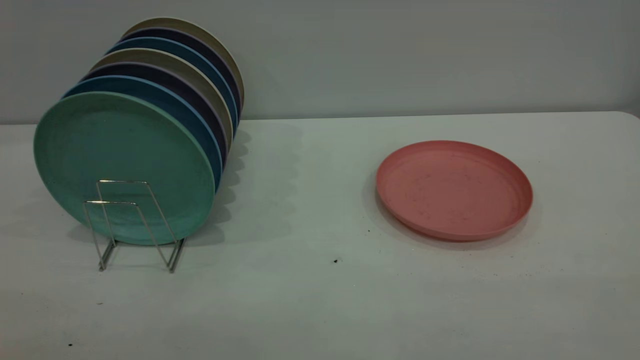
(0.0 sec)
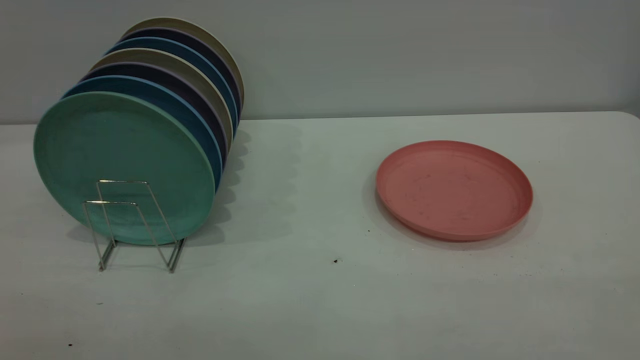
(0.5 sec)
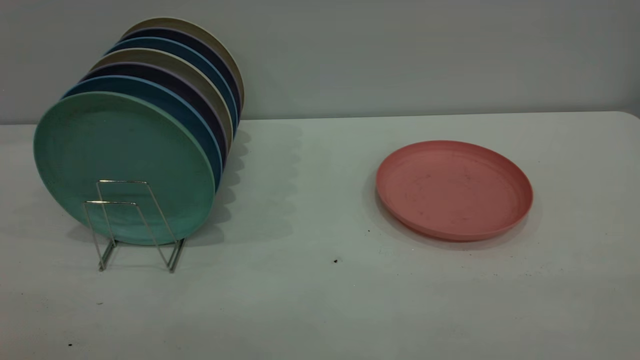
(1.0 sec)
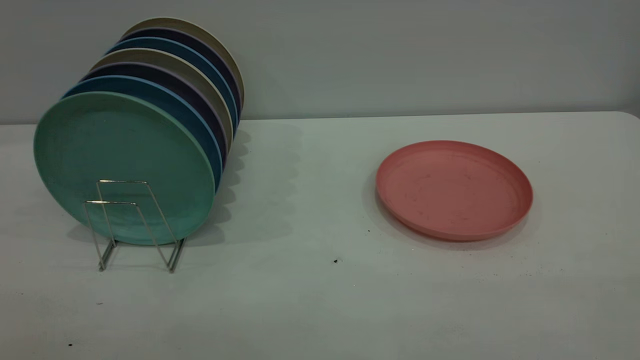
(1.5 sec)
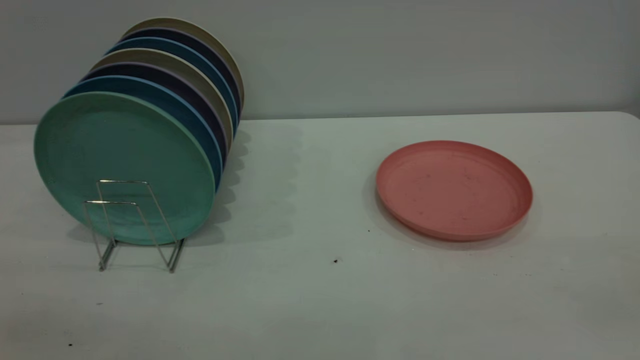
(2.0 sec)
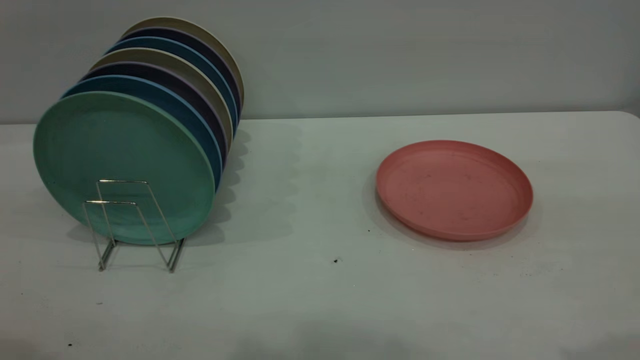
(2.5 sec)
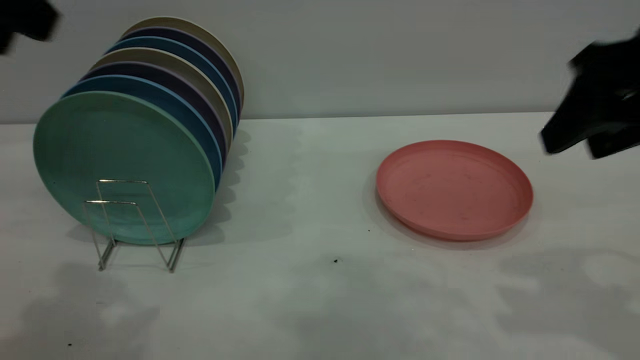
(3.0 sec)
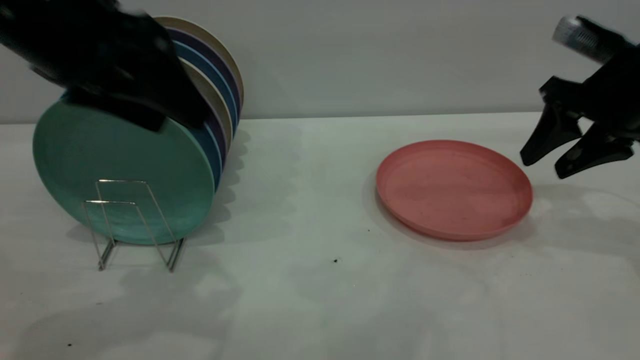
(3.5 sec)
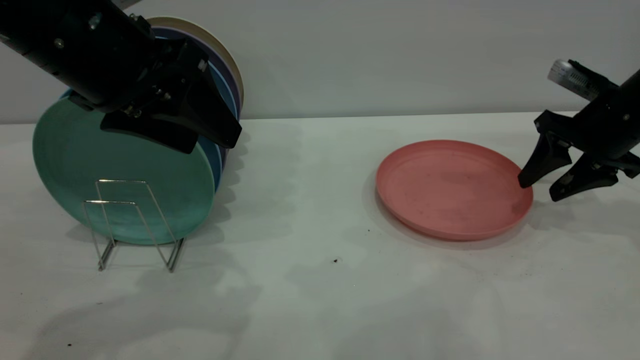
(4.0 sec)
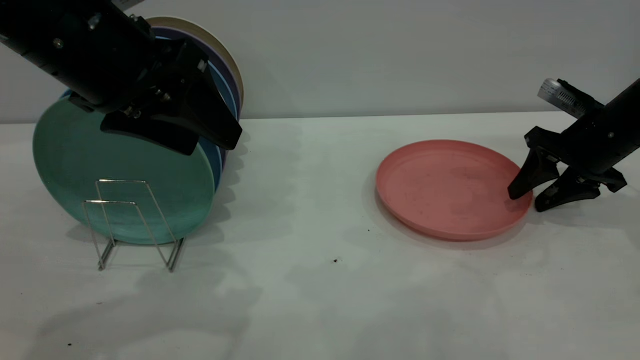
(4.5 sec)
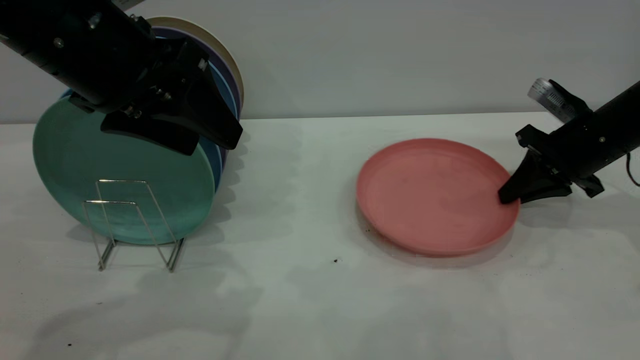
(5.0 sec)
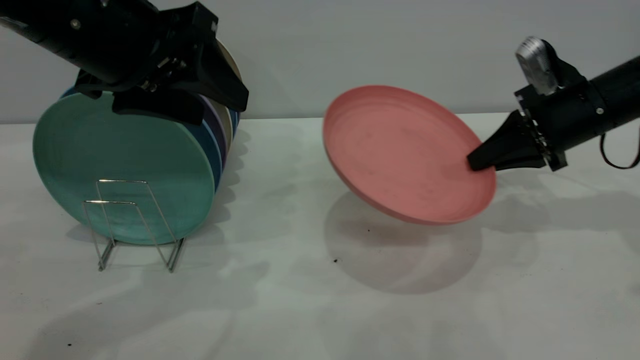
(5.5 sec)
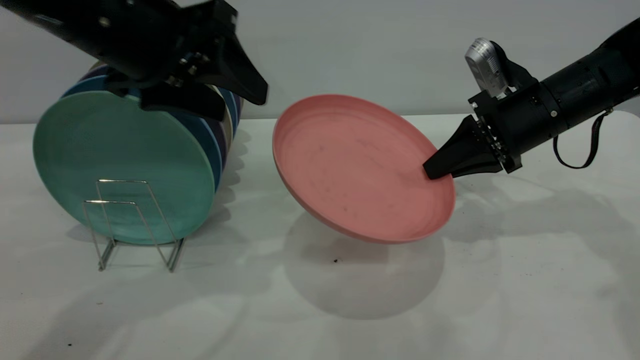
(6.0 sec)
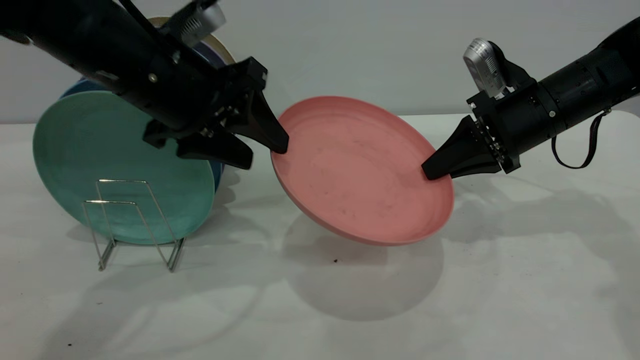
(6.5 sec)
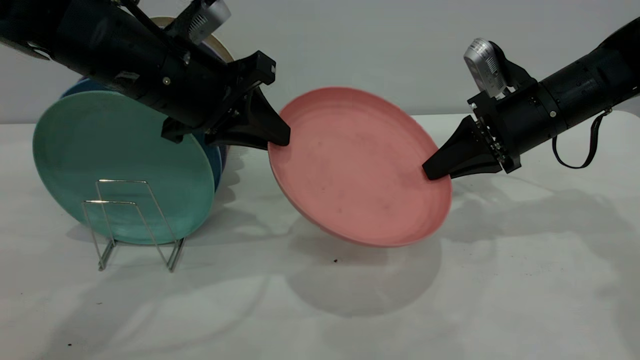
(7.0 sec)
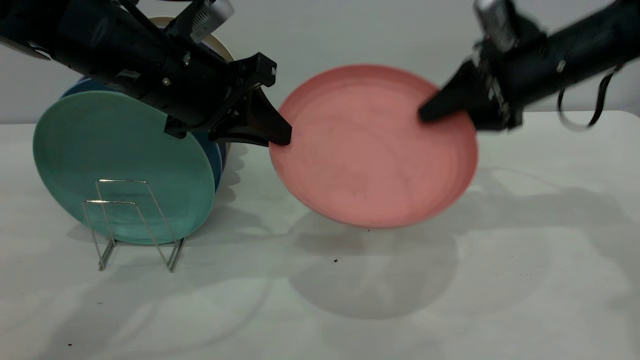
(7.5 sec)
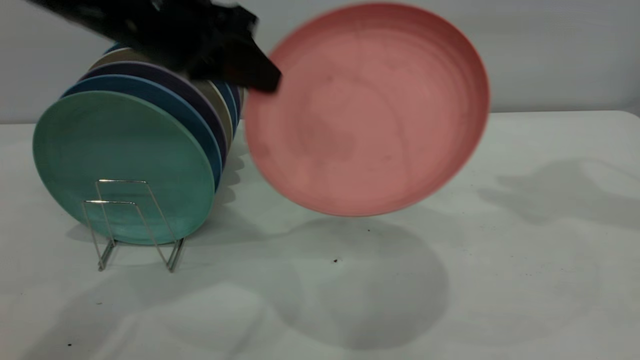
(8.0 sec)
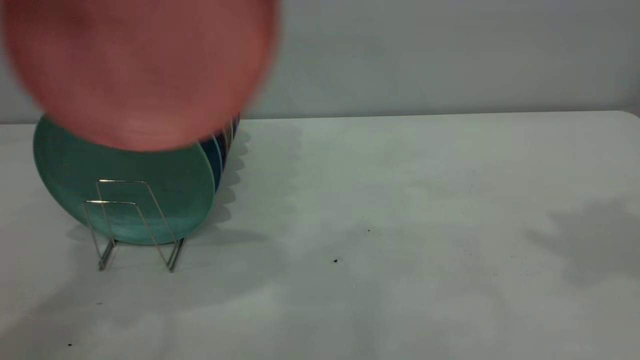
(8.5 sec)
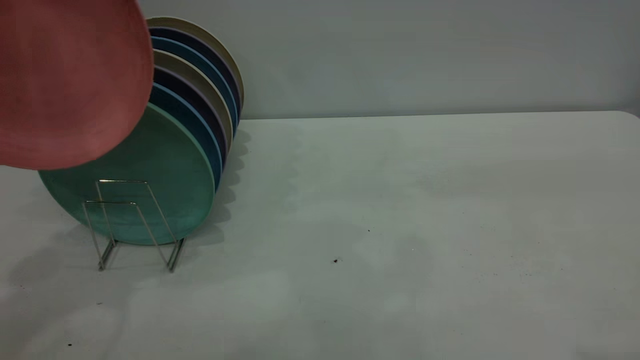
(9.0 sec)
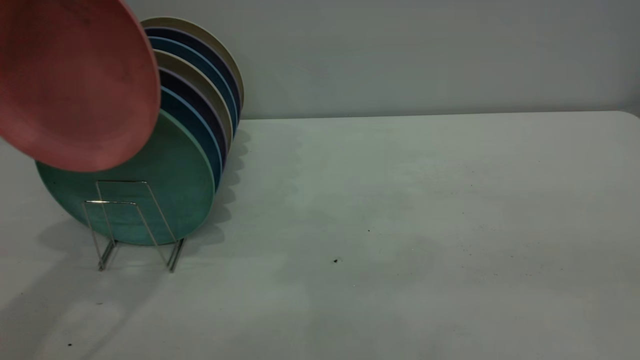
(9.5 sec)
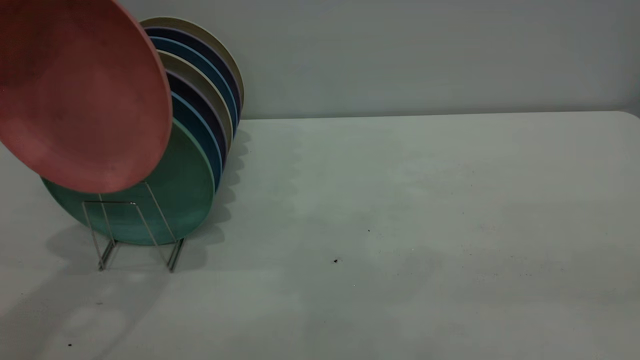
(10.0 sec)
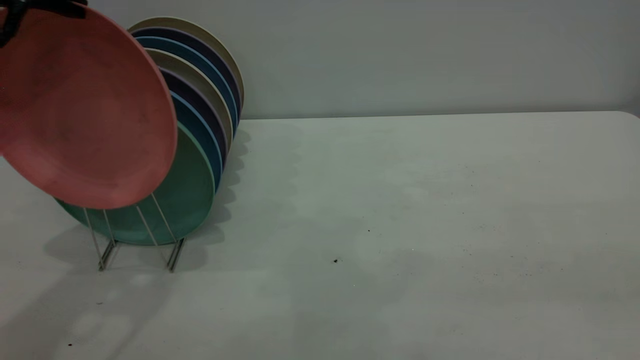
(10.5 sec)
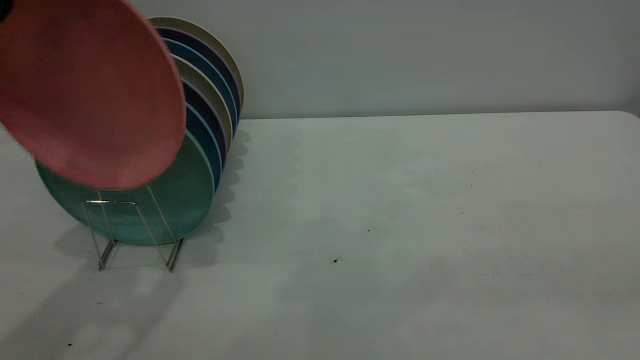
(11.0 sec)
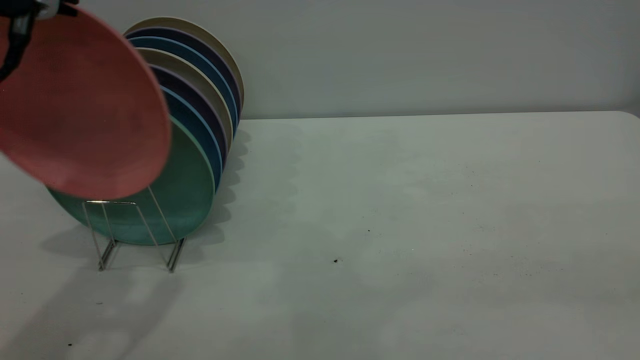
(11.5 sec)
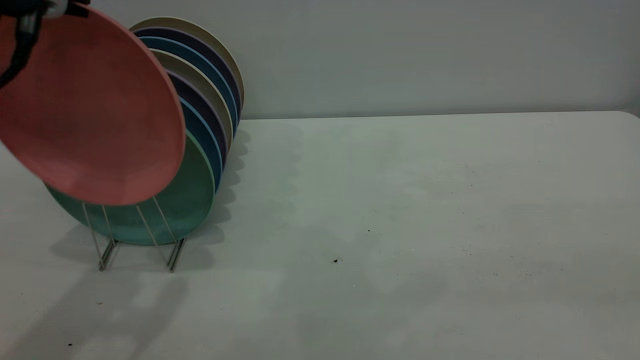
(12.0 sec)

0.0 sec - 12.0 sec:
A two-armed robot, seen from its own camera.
Task of the whole recording: the right gripper grasp the pink plate, the right gripper pass the pink plate to the left gripper, and the left gripper place the pink plate on the plate rack.
Step, 0.0 sec - 5.0 sec: Pick up the plate with the right gripper.
Step, 5.5 sec - 7.5 sec: Pass the plate from the right gripper to the left gripper.
2.0 sec - 4.0 sec: The right gripper travels forward and downward by approximately 50 cm; the left gripper heads forward, downward and to the right, covering about 35 cm.
4.0 sec - 6.0 sec: The right gripper travels to the left by roughly 10 cm, and closes up.
6.0 sec - 8.0 sec: The left gripper closes its fingers; the right gripper goes roughly 25 cm upward and to the right, and opens its fingers.
8.0 sec - 10.0 sec: The right gripper moves backward, approximately 35 cm; the left gripper shifts roughly 15 cm to the left and upward.
10.0 sec - 12.0 sec: The grippers stay close to where they were, moving slightly.

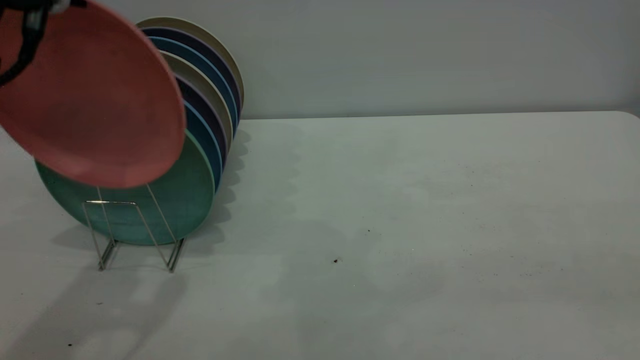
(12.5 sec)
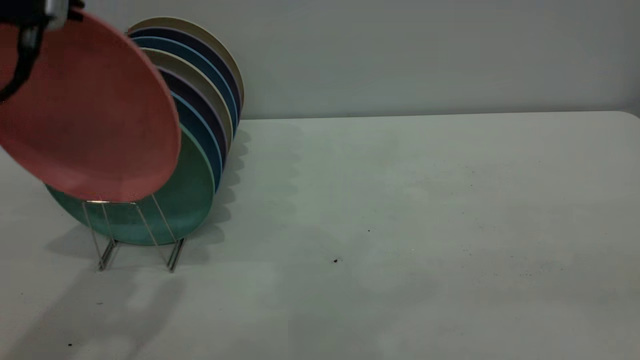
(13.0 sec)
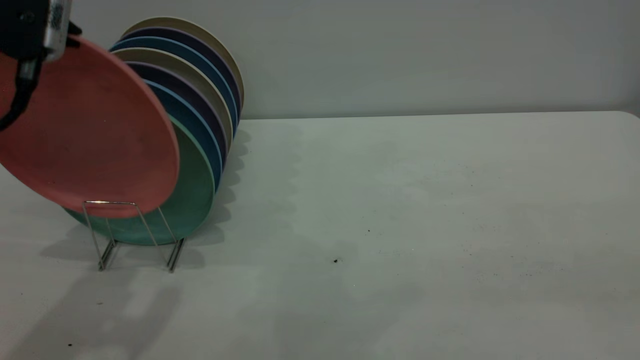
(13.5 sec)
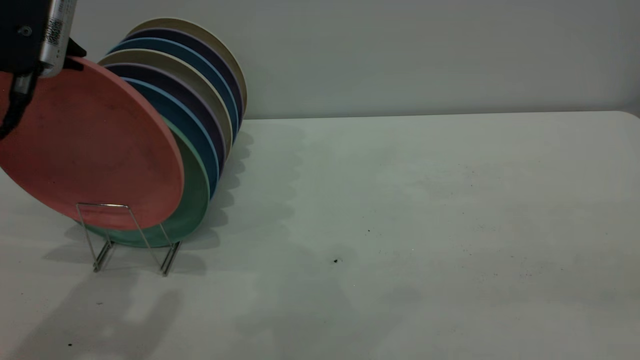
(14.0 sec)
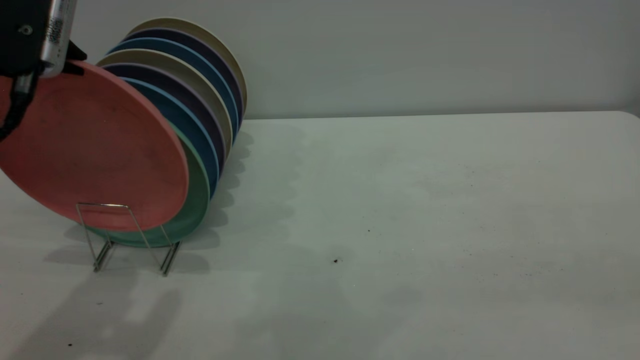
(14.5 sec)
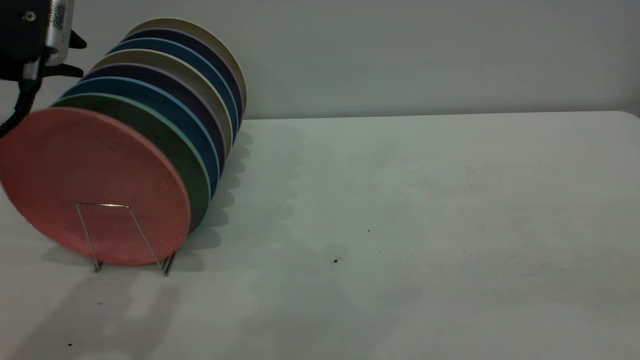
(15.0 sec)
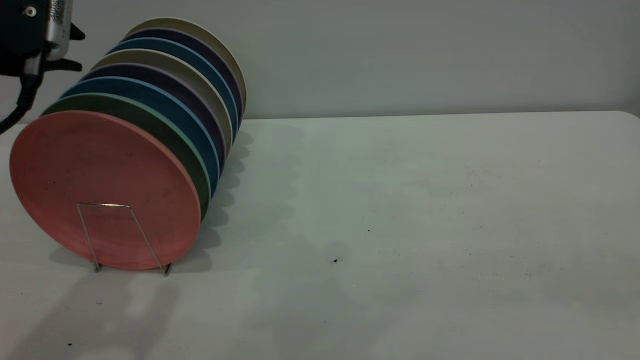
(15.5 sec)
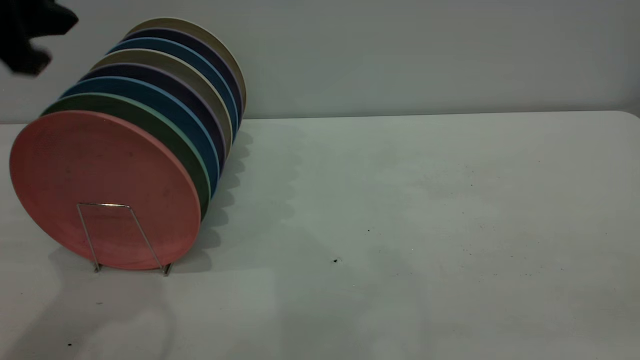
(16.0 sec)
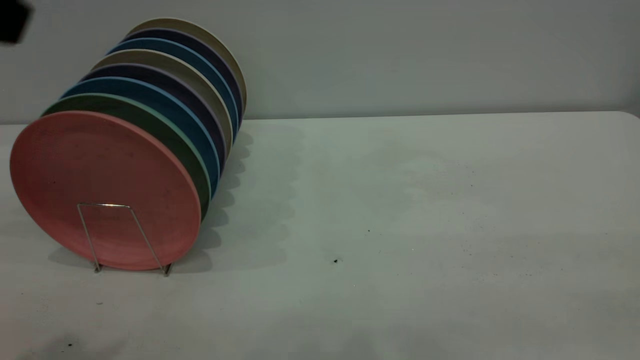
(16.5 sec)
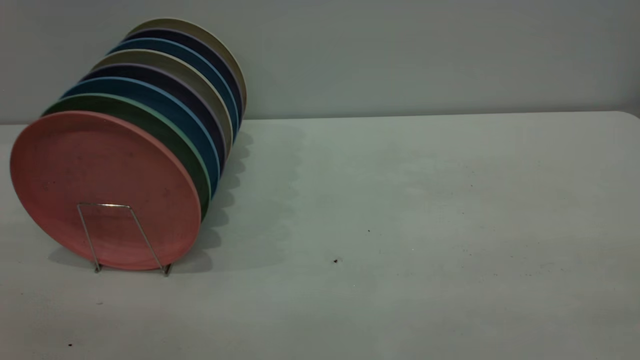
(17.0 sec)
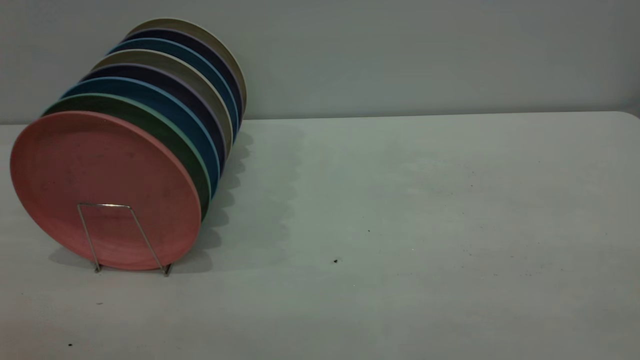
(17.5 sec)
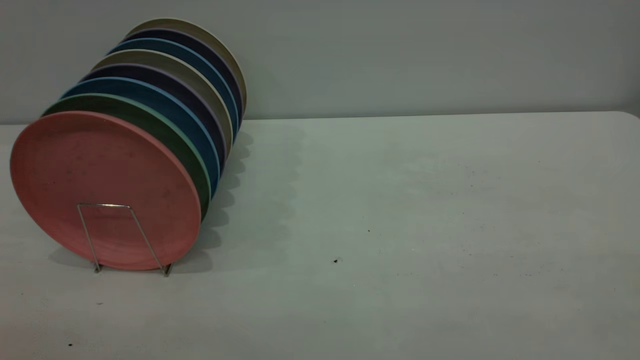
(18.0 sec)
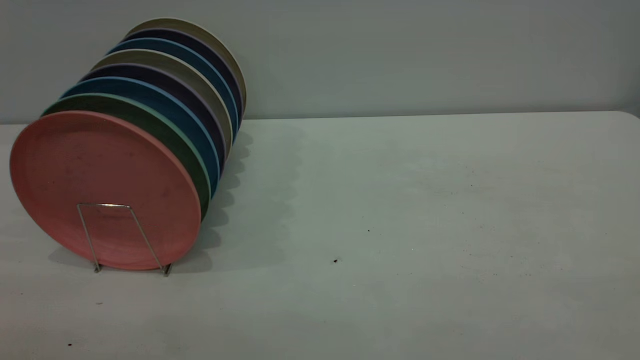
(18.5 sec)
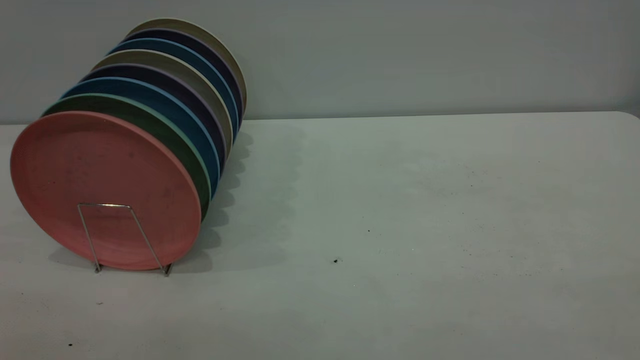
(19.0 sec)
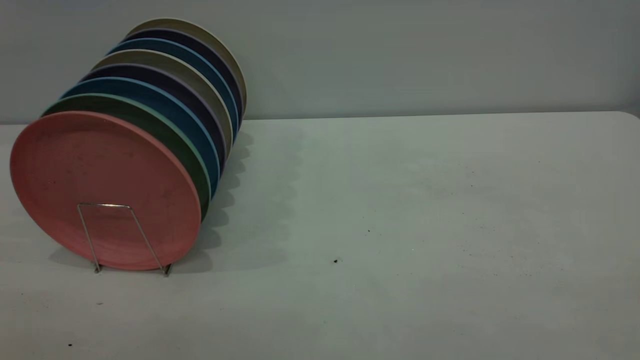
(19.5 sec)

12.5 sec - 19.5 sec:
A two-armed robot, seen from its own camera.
Task of the whole recording: the right gripper grasp the pink plate, the right gripper pass the pink plate to the left gripper, and the left gripper place the pink plate on the plate rack.
Step, 12.5 sec - 16.0 sec: Place the plate on the shelf.
12.5 sec - 14.5 sec: There are only small adjustments of the grippers.
16.0 sec - 17.5 sec: The left gripper heads backward, covering roughly 25 cm.
